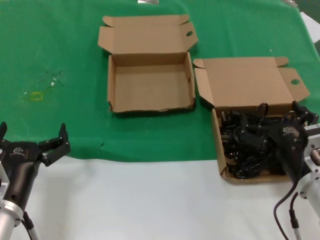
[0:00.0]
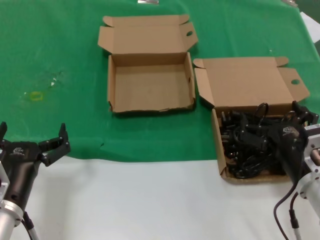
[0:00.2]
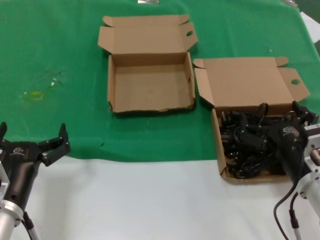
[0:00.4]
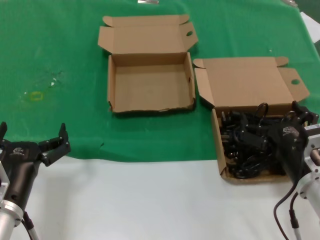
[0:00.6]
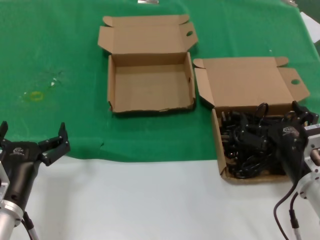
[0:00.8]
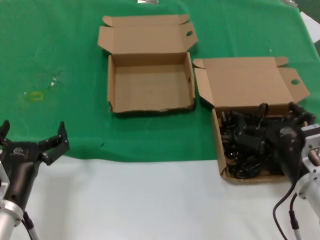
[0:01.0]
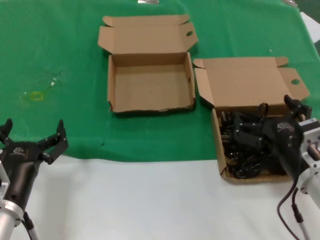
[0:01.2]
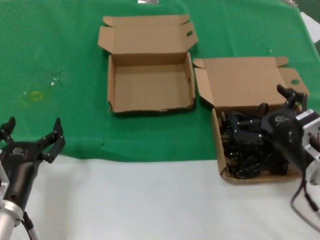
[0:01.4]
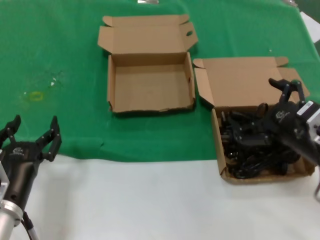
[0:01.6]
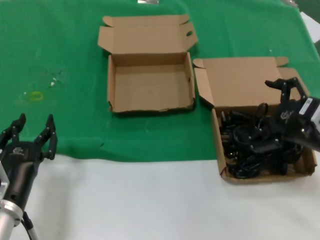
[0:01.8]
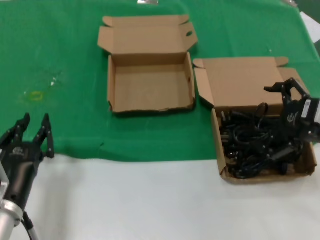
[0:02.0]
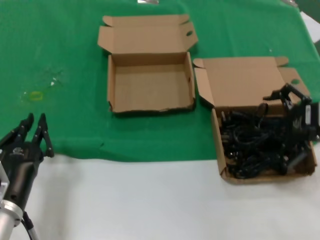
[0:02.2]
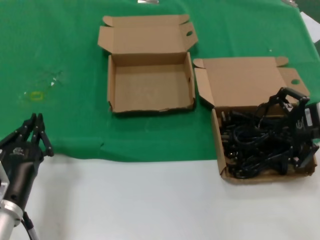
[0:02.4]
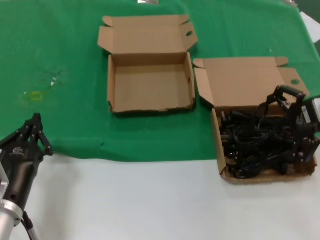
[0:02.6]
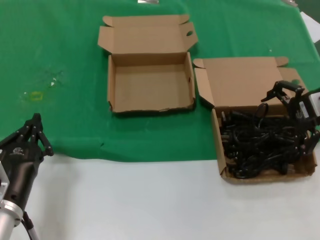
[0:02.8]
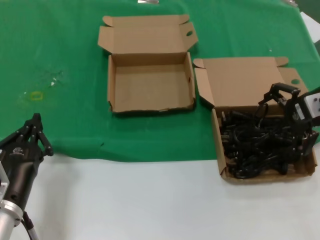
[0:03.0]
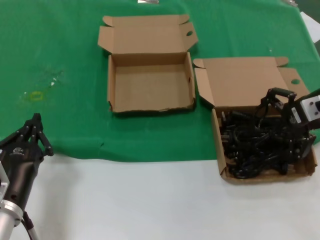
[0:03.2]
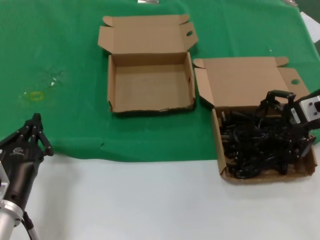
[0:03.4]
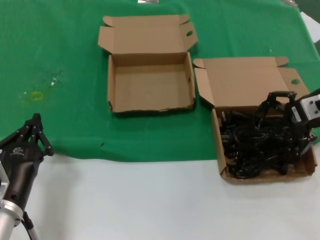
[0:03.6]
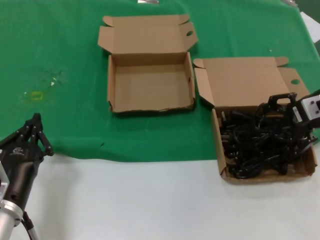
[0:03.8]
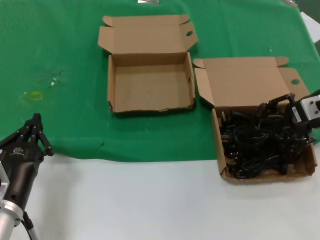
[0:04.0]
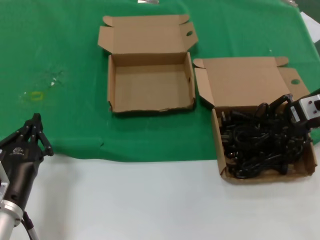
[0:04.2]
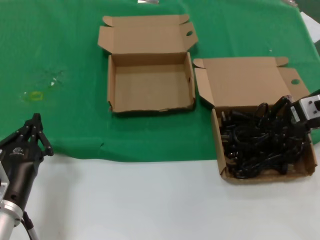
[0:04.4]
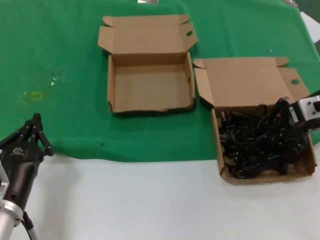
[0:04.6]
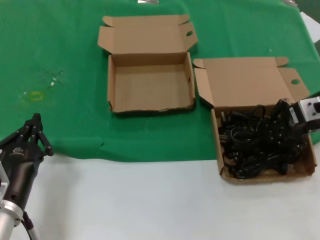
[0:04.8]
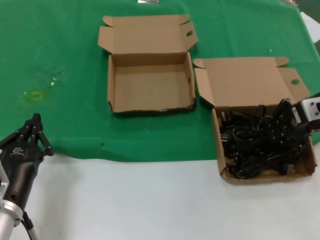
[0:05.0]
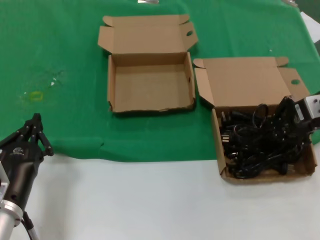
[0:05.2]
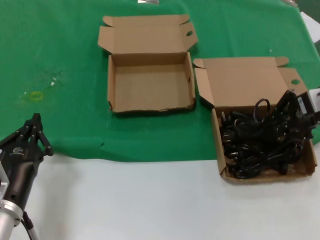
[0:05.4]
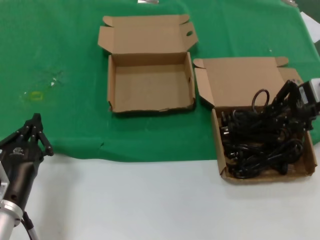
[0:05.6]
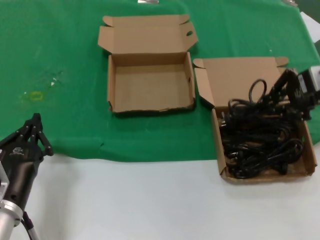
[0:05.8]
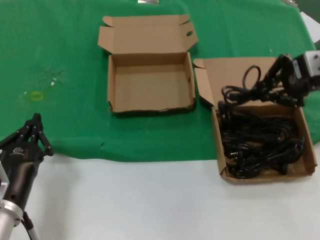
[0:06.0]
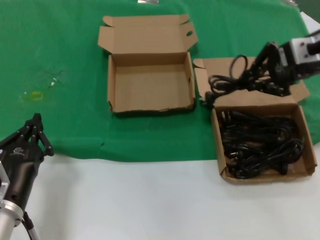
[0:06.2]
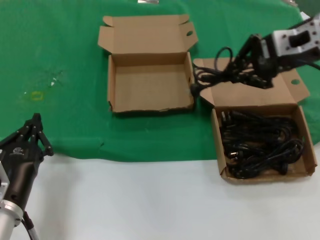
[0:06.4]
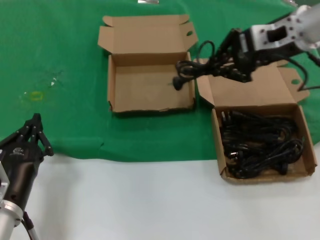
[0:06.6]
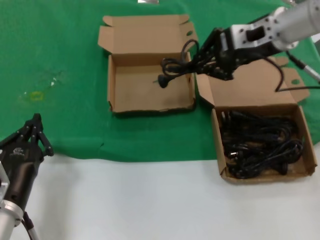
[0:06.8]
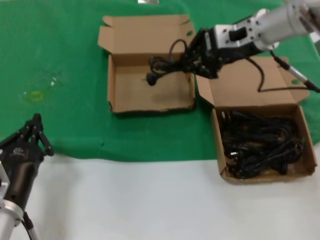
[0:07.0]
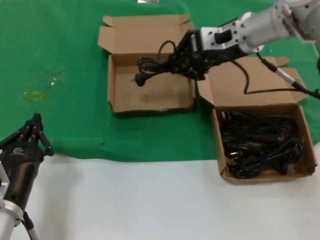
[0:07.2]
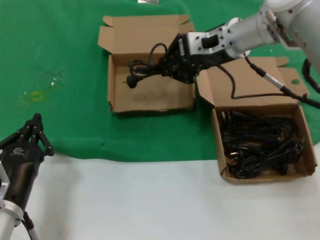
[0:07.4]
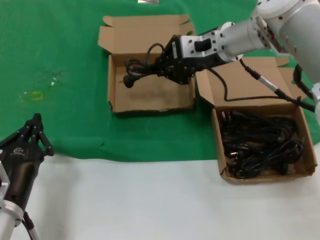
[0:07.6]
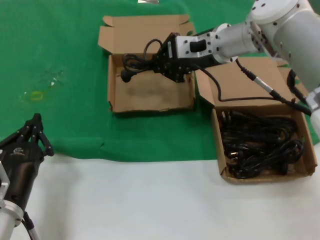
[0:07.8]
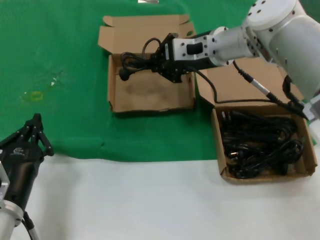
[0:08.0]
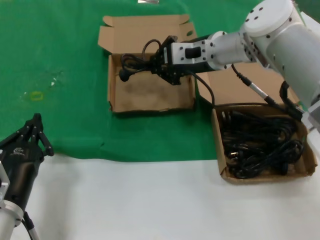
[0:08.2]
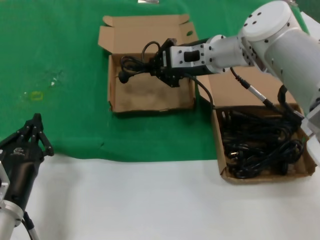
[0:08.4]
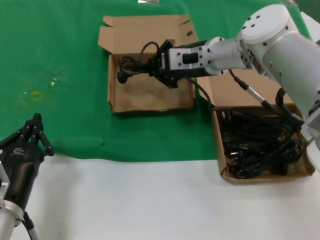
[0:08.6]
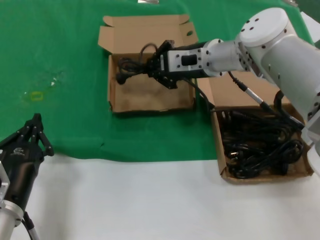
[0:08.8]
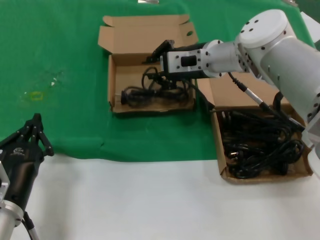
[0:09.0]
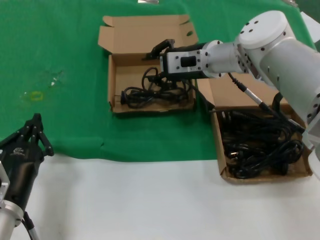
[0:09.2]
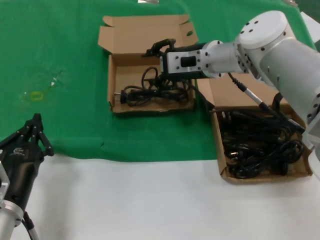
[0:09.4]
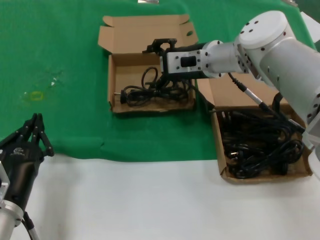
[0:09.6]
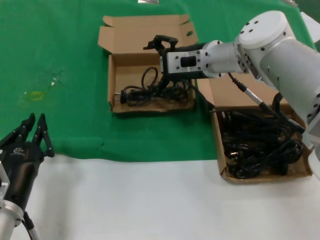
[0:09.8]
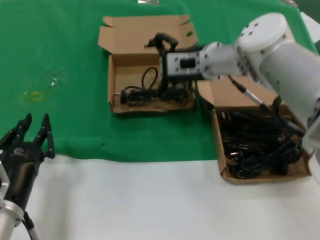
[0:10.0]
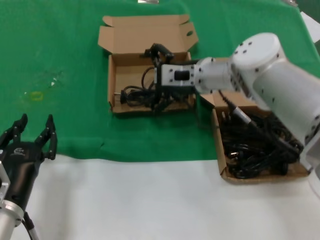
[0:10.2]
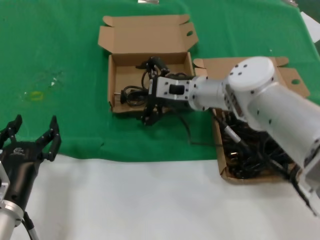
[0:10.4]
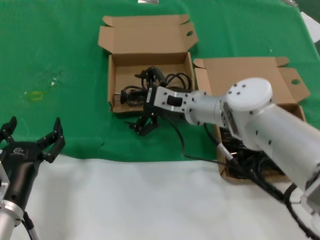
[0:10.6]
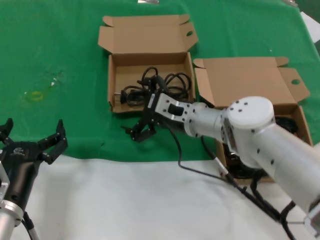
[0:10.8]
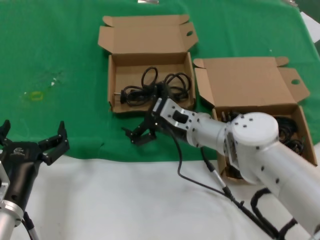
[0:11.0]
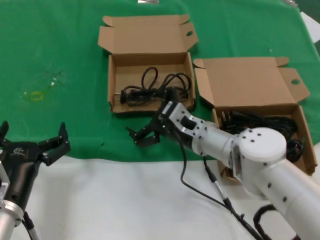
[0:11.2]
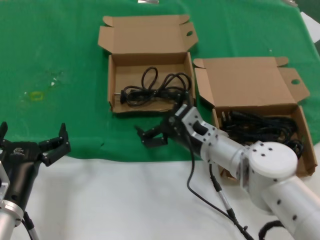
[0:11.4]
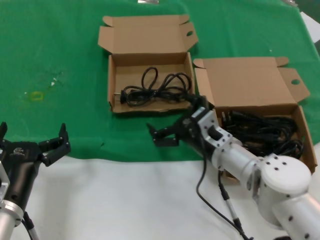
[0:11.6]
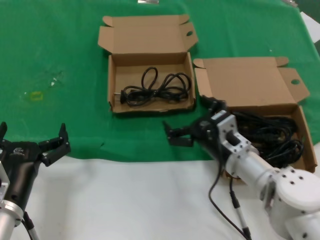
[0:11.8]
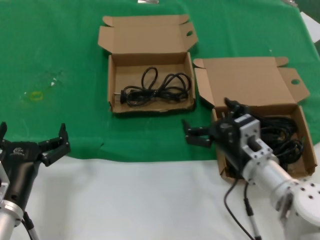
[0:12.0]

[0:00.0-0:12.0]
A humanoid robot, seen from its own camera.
Task of the whole recording: take the parts from the box containing them and put them into an empty box.
Step, 0.0 to 4.8 s: Grasp the data cable.
Step, 5.0 to 9.0 s: Place the data cable in the another box.
0.0 to 1.6 s: The right hand goes roughly 5 cm upward.
1.6 to 3.0 s: The right hand travels forward, upward and to the right by roughly 20 cm.
3.0 to 4.4 s: There are only small adjustments of the hands.
4.4 to 6.0 s: The right hand moves upward, some 10 cm.
6.0 to 7.6 s: The right hand is displaced to the left and forward by some 20 cm.
7.6 to 9.0 s: The right hand goes roughly 5 cm downward.
9.0 to 10.4 s: The right hand travels downward by approximately 5 cm.
10.4 to 12.0 s: The right hand heads backward, downward and to the right, covering some 20 cm.

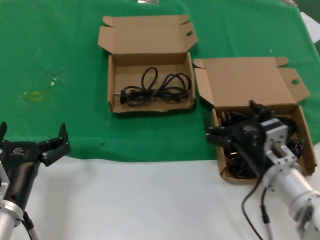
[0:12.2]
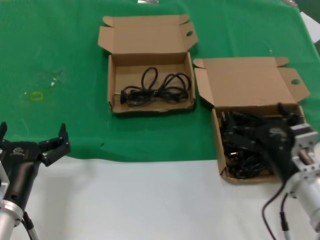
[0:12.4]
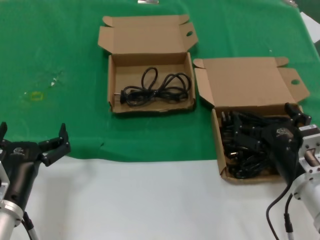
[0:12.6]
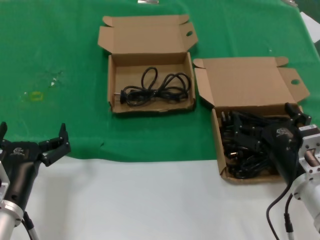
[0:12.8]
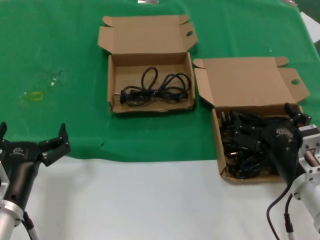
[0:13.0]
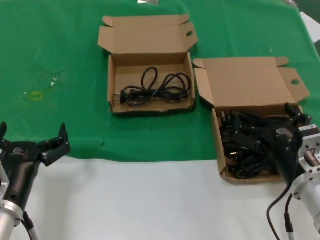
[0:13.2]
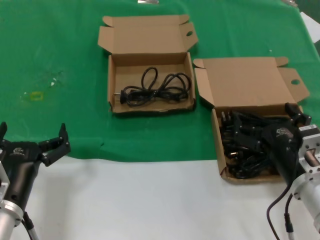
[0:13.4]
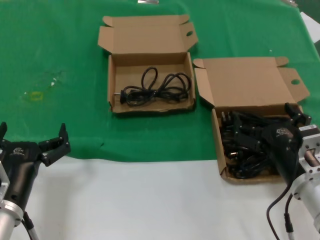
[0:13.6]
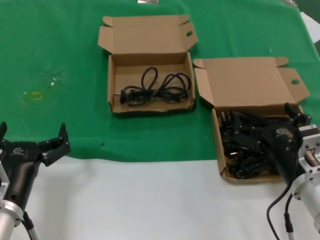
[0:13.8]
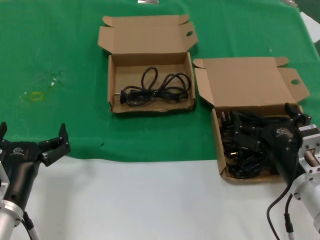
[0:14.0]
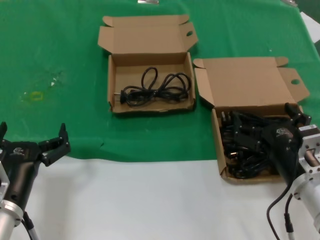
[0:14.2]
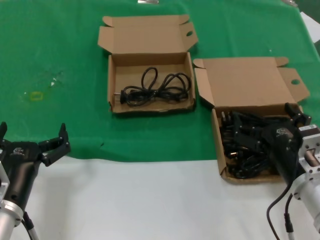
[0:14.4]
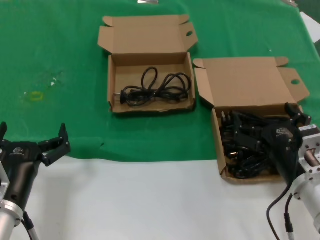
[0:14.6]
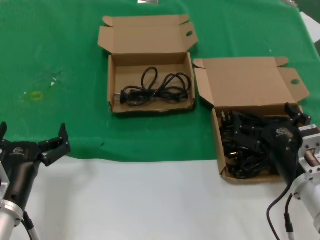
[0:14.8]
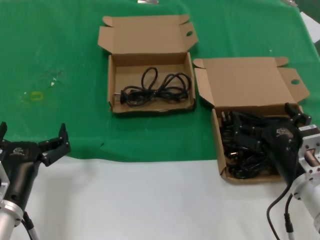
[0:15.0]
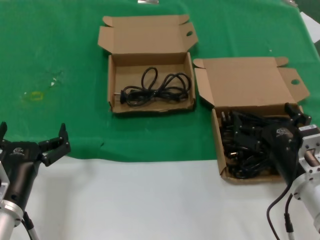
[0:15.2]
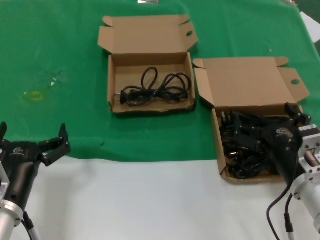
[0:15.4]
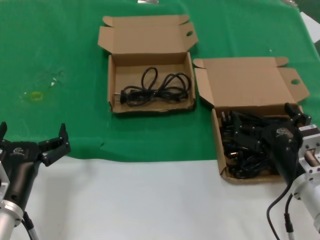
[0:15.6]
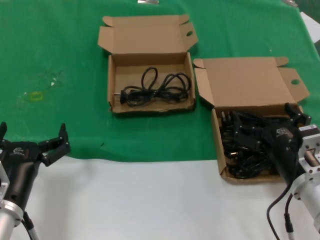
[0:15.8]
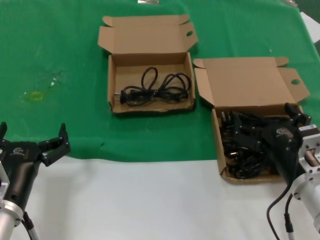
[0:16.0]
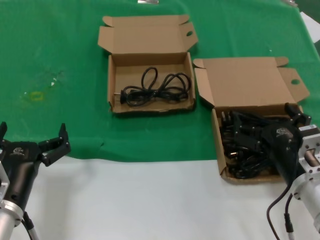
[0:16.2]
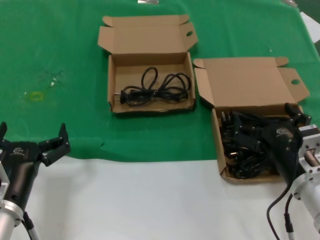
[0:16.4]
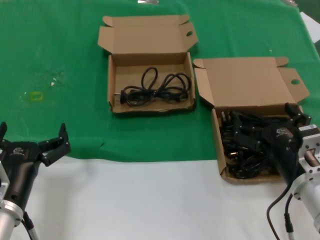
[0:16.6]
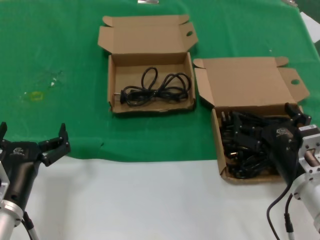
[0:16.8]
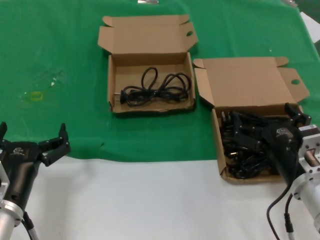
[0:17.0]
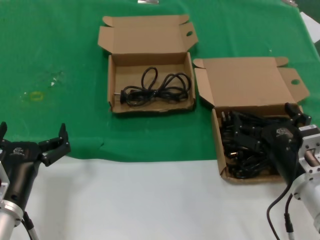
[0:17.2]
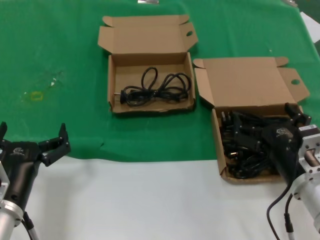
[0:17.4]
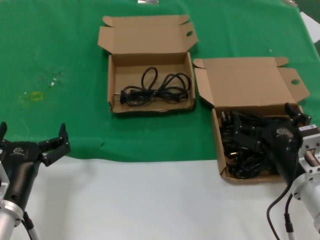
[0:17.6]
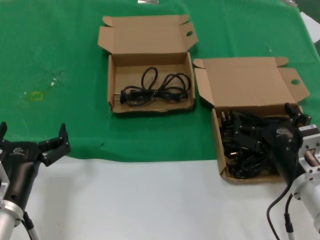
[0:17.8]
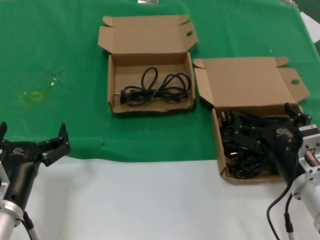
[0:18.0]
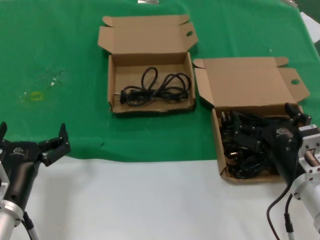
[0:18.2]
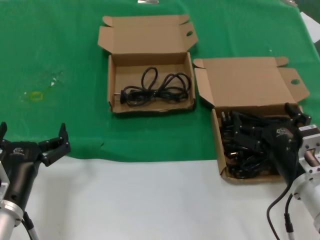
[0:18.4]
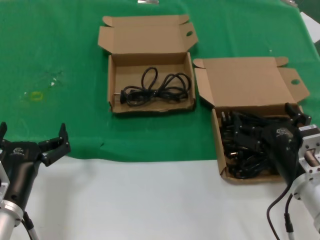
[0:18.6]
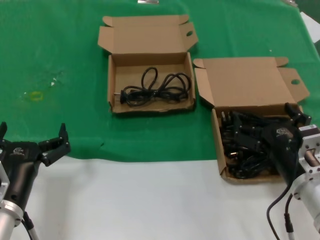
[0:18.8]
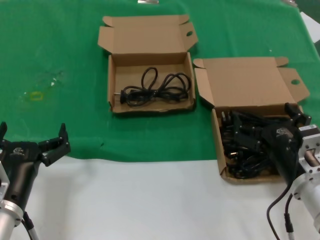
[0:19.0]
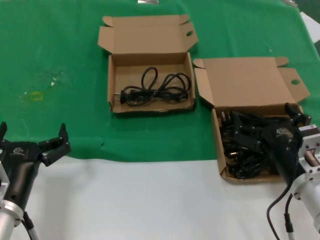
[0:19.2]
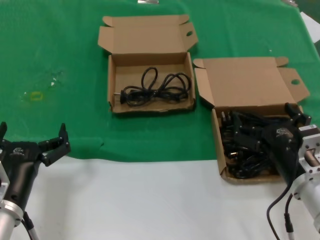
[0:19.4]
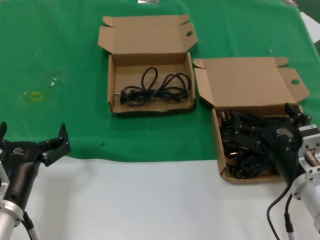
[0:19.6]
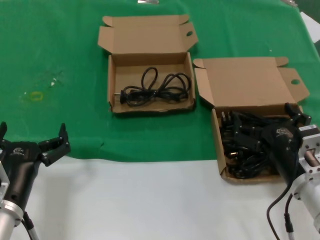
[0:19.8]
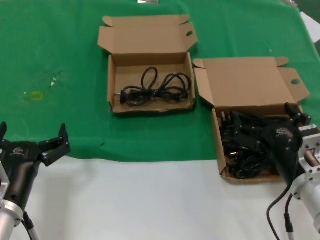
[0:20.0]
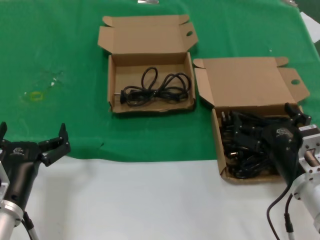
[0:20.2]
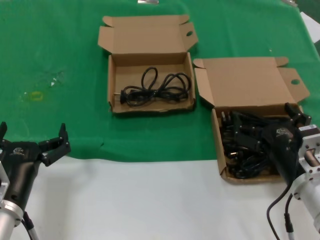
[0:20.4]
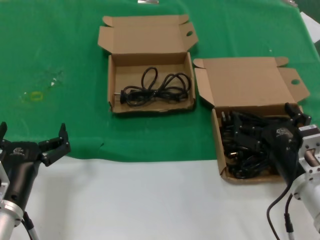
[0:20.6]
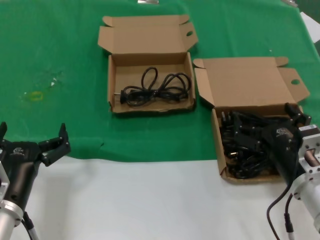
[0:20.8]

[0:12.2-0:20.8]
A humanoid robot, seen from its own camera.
Task of the whole recording: take the parts from the box containing them and put them into an empty box.
12.2 to 13.6 s: The right hand shifts by roughly 5 cm.
13.6 to 20.8 s: Both hands stay about where they are.

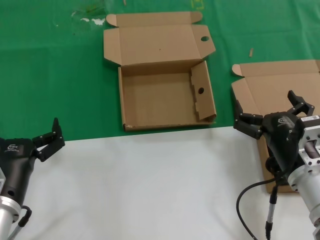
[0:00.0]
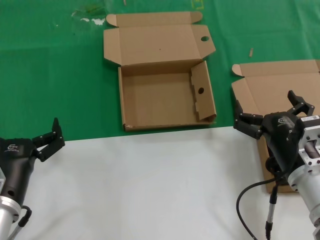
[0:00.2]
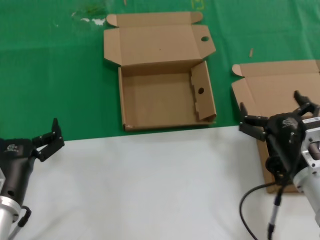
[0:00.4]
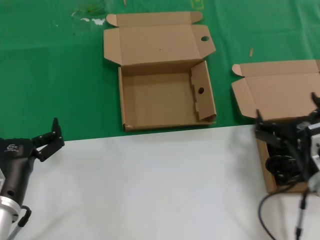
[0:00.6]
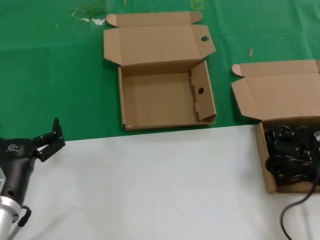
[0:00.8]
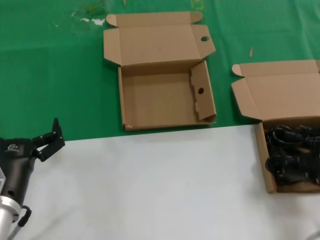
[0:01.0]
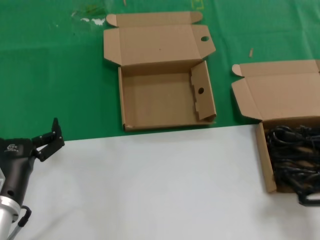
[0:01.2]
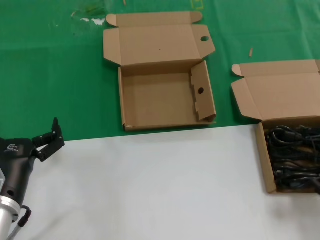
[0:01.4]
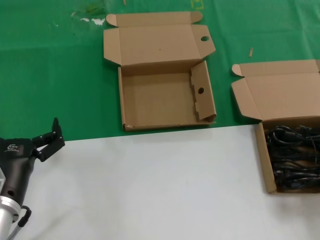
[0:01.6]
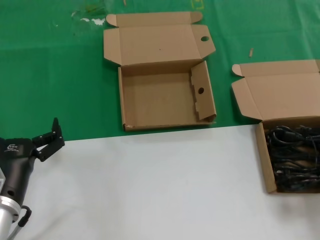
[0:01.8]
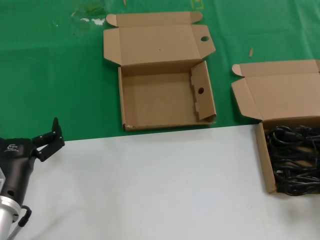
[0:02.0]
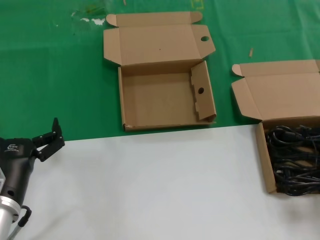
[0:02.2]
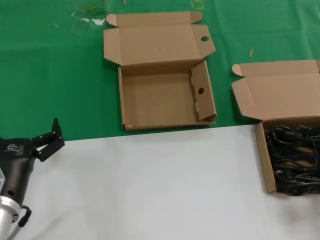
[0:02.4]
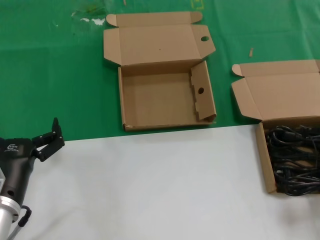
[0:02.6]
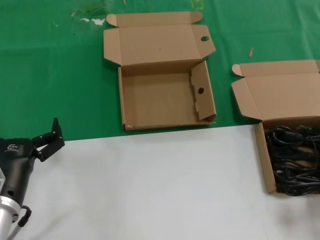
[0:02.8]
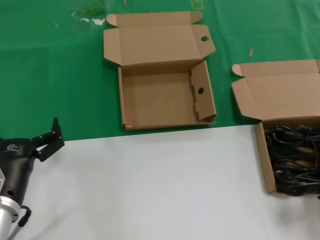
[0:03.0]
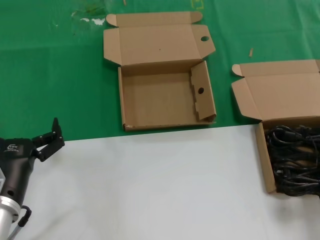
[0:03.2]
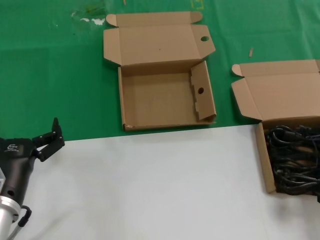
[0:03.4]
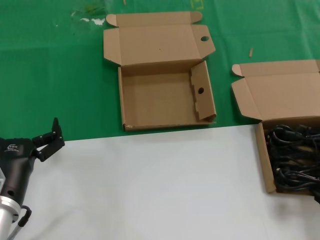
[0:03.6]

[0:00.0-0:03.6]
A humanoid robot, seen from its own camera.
Task of the whole recording: take the parts from the box containing them and put them into an empty box.
0.0 to 1.8 s: The right hand heads to the right and backward, covering roughly 20 cm.
